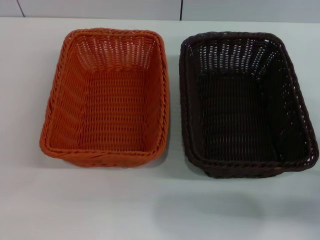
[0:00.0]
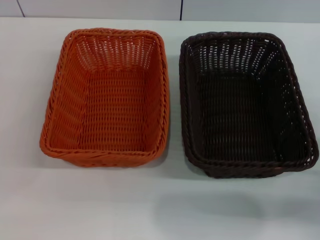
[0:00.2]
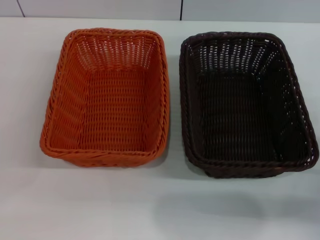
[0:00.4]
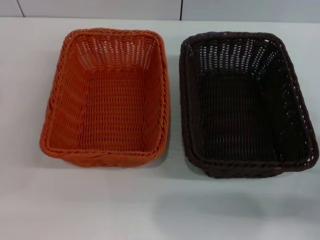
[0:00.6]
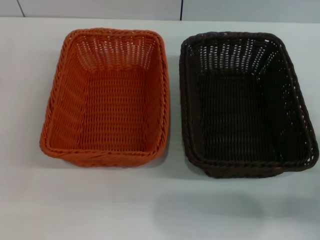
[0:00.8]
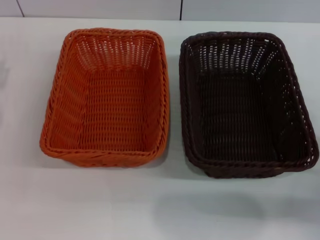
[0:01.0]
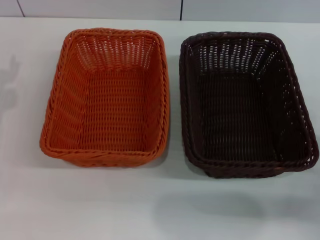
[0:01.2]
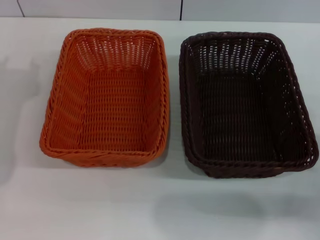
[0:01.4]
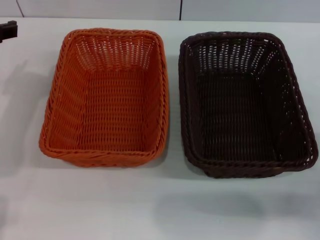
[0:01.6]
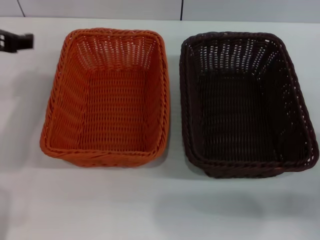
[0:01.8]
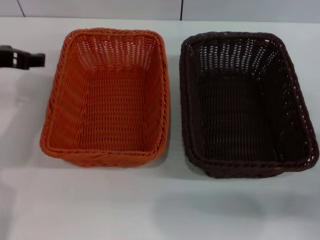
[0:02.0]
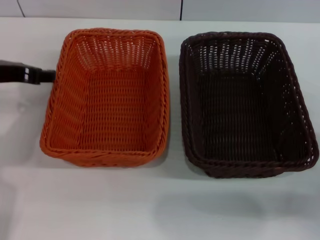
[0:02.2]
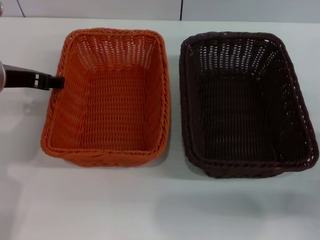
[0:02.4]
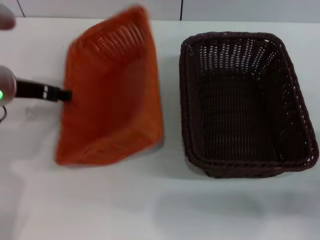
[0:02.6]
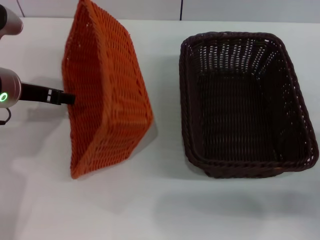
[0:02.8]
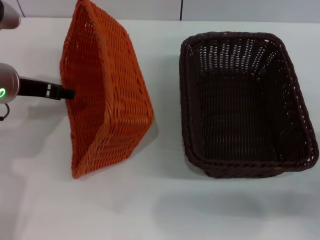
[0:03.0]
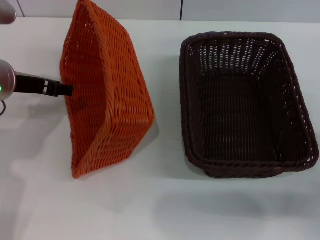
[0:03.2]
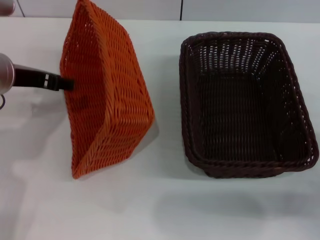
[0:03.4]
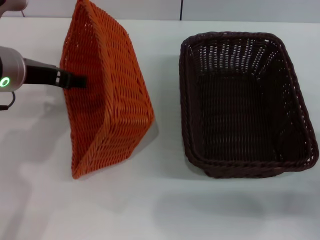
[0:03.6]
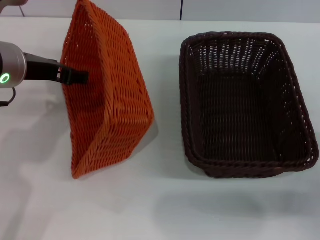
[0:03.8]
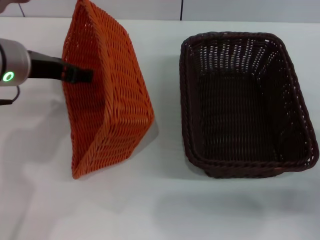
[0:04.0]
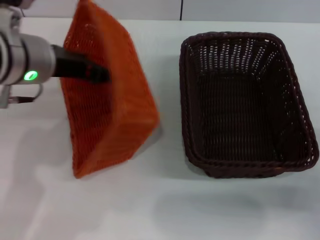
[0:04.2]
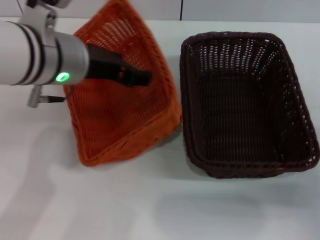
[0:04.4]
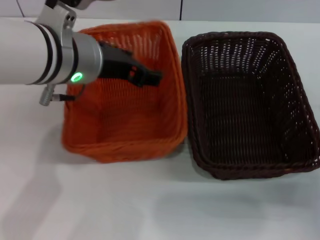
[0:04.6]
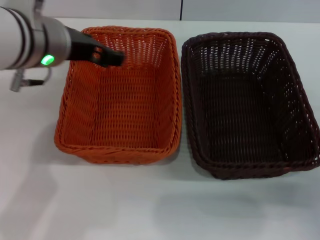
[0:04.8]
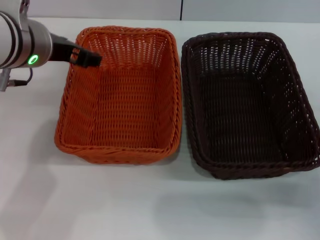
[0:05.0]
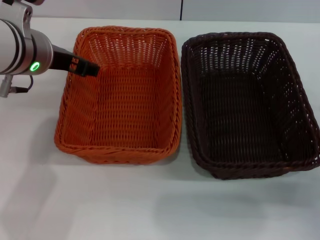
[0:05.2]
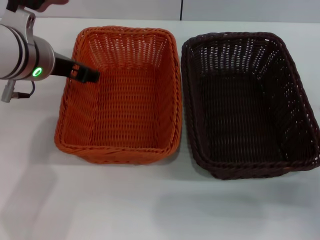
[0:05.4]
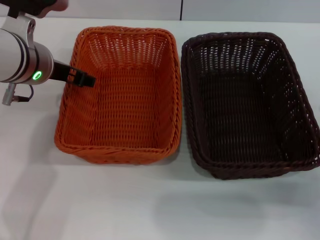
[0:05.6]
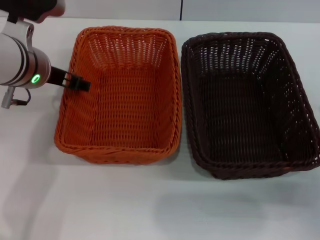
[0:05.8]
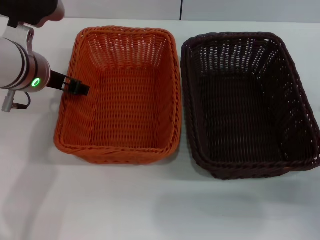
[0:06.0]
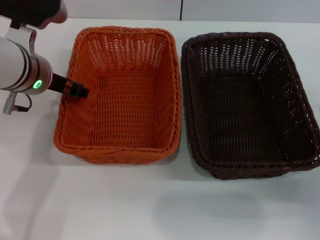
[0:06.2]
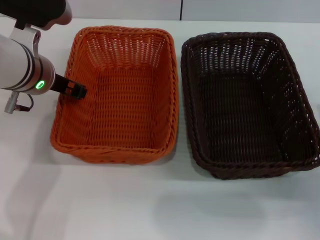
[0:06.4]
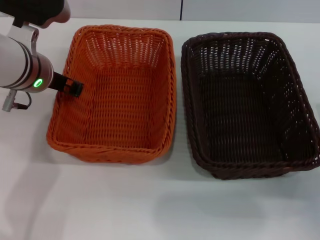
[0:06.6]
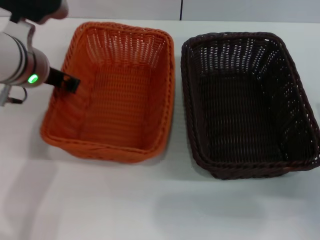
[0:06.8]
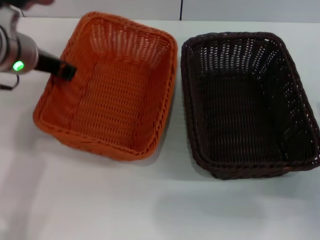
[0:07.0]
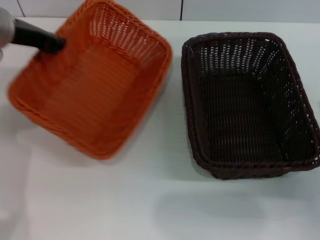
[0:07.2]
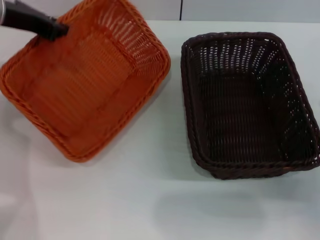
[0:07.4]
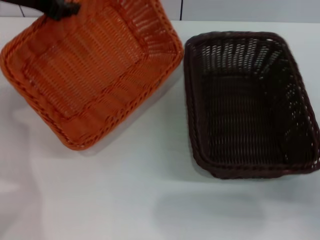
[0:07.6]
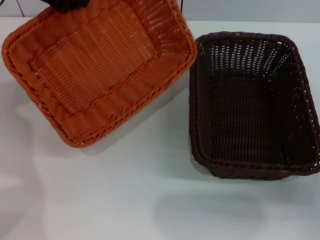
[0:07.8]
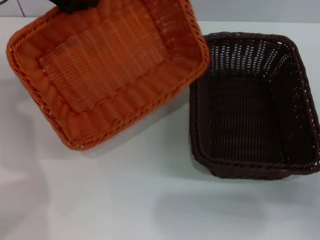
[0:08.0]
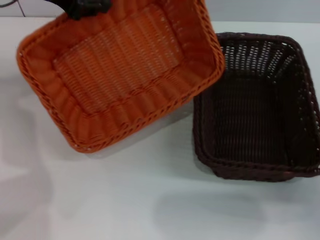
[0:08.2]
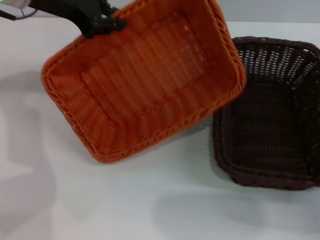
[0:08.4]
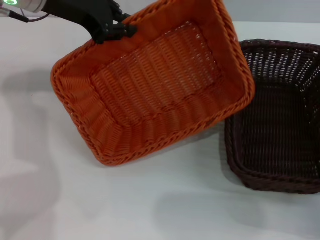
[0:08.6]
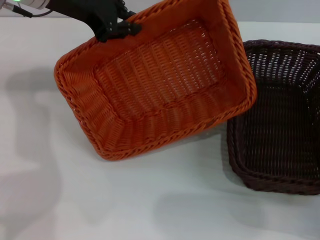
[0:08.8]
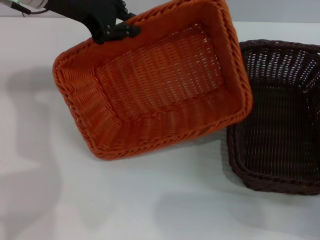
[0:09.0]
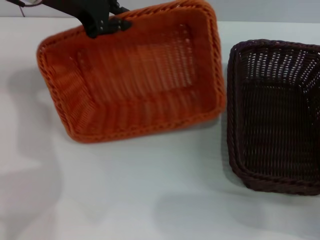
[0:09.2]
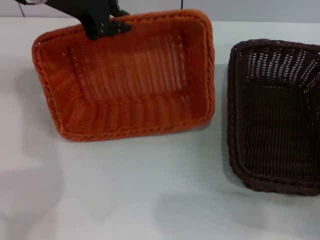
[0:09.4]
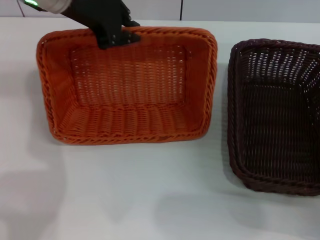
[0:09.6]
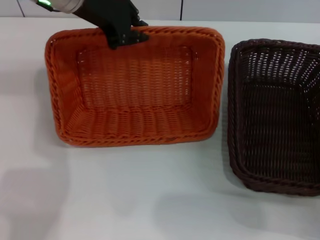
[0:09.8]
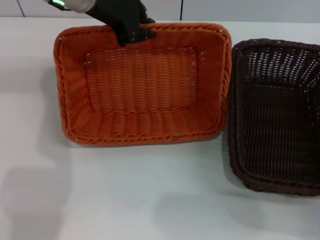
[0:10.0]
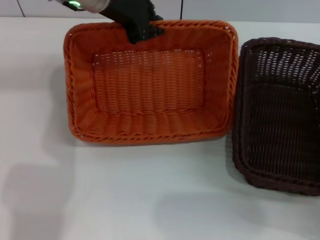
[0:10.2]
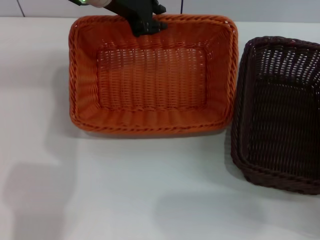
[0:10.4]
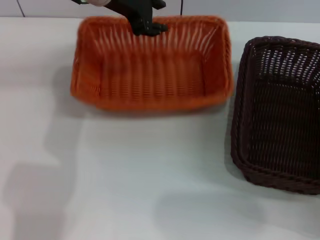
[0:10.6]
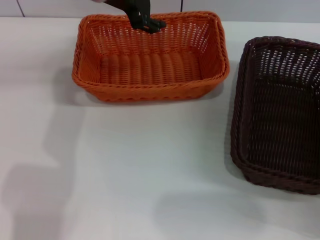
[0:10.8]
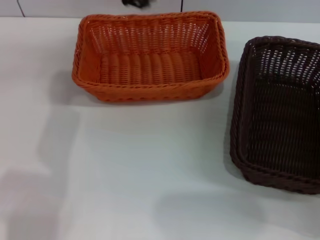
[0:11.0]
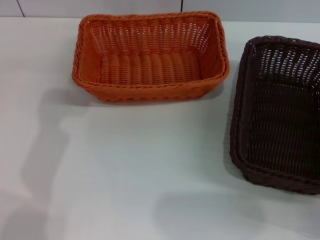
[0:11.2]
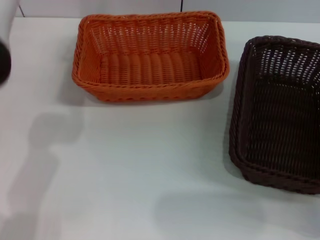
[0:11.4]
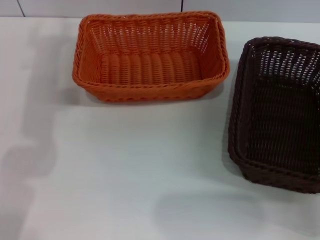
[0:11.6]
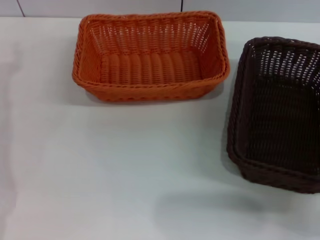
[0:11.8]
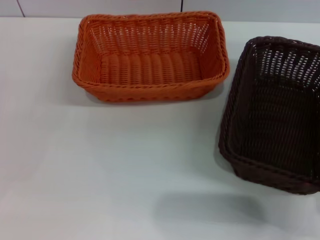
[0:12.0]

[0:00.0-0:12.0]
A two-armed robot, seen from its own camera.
Step, 0:00.0 to 0:07.2: Pick up the light basket with the left gripper.
Step, 0:07.6 to 0:10.6: Place the light basket in the center of view with the left gripper.
0:00.0 to 0:01.6: The left gripper travels upward, forward and to the right by approximately 25 cm.
0:01.6 to 0:03.0: The left gripper moves downward, about 5 cm.
0:03.0 to 0:04.4: The left gripper moves to the right and upward, some 10 cm.
0:04.4 to 0:06.0: The left gripper moves downward, about 5 cm.
0:06.0 to 0:07.6: The left gripper heads upward and to the left, covering some 10 cm, and closes its fingers.
0:07.6 to 0:09.0: The left gripper moves to the right, about 5 cm.
0:09.0 to 0:10.4: The left gripper moves to the right, approximately 5 cm.
0:10.4 to 0:12.0: The left gripper shifts roughly 35 cm to the left, backward and downward, and opens its fingers. Meanwhile the right gripper goes some 5 cm upward.

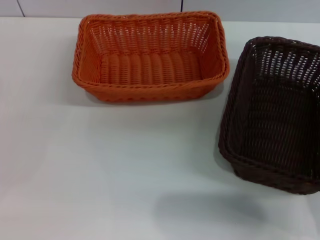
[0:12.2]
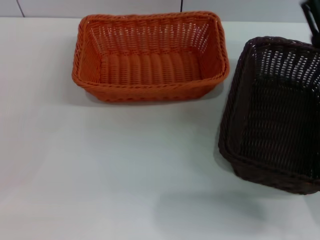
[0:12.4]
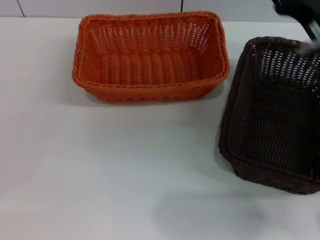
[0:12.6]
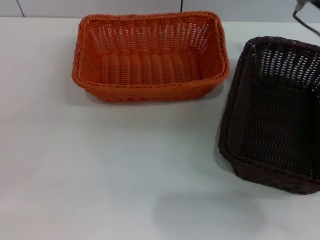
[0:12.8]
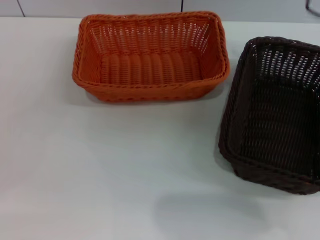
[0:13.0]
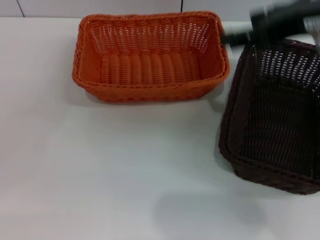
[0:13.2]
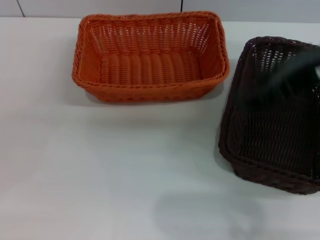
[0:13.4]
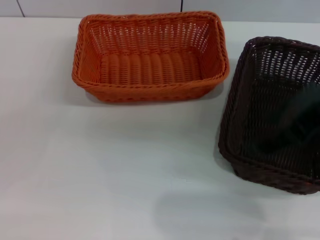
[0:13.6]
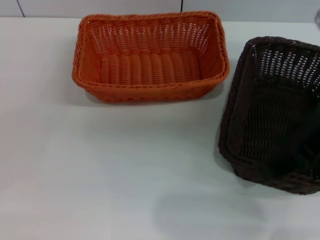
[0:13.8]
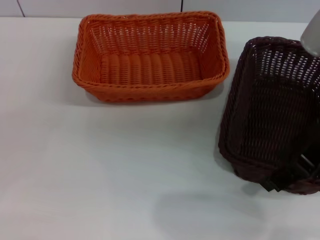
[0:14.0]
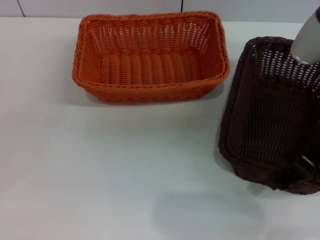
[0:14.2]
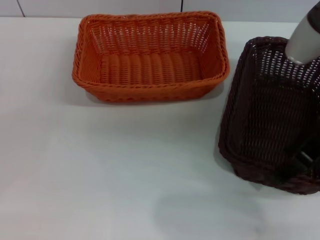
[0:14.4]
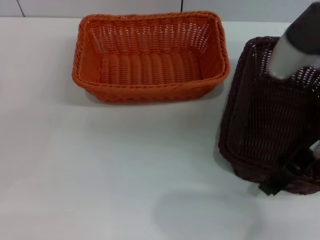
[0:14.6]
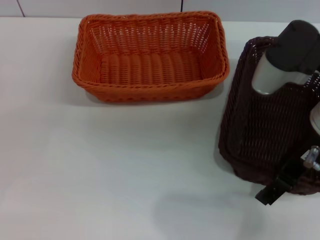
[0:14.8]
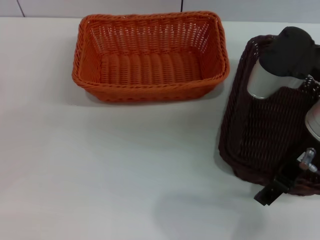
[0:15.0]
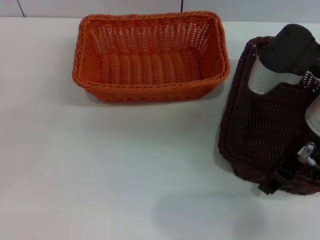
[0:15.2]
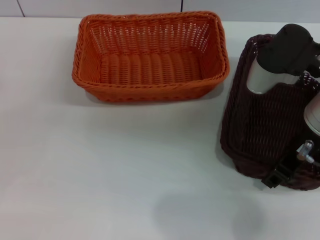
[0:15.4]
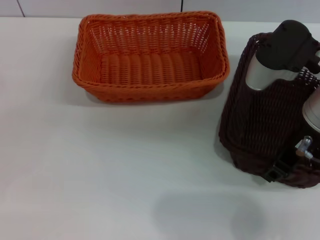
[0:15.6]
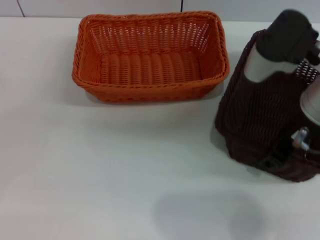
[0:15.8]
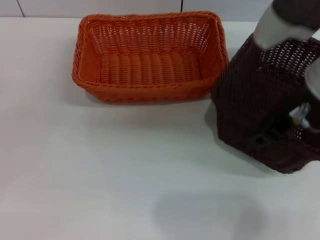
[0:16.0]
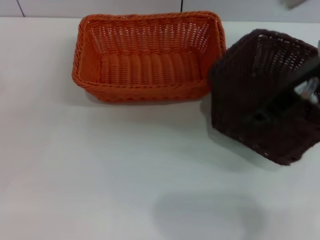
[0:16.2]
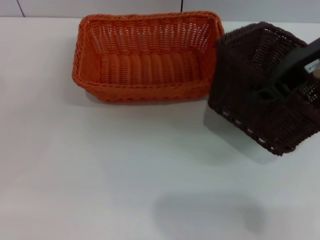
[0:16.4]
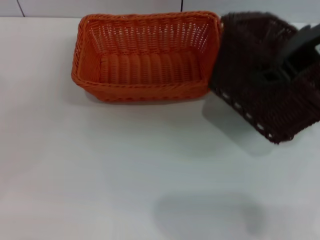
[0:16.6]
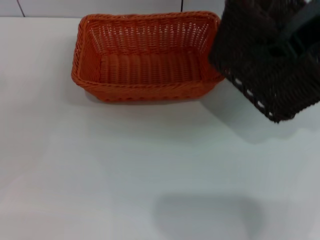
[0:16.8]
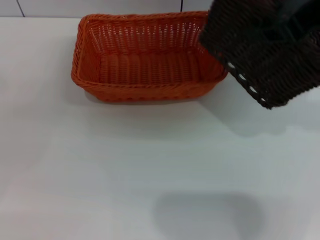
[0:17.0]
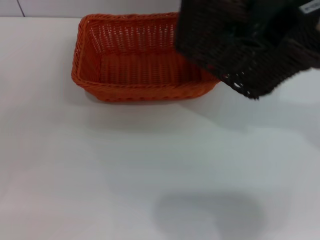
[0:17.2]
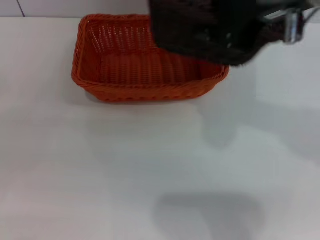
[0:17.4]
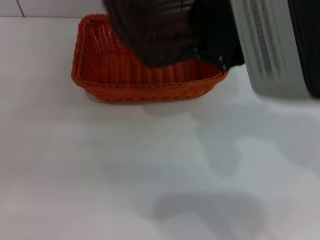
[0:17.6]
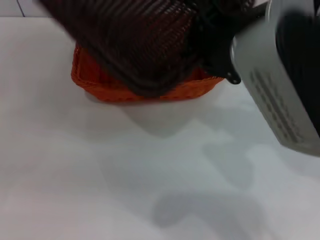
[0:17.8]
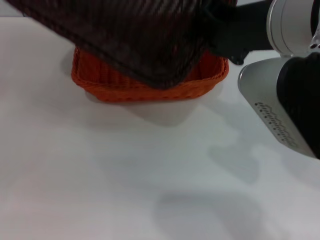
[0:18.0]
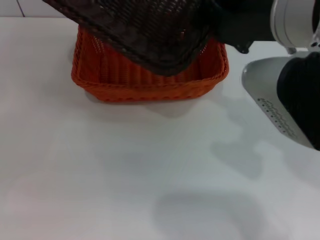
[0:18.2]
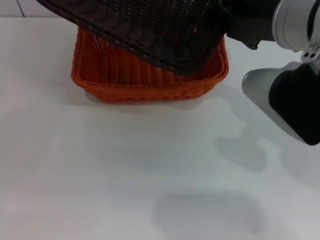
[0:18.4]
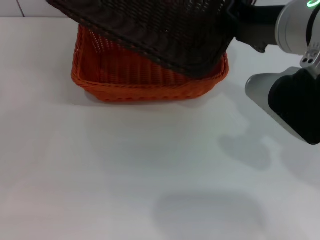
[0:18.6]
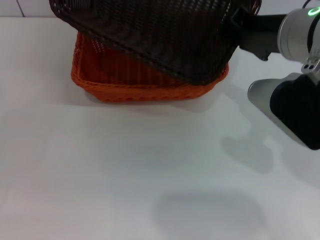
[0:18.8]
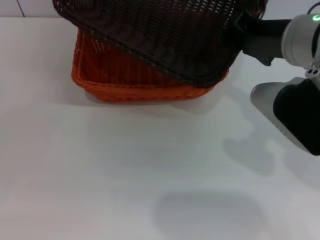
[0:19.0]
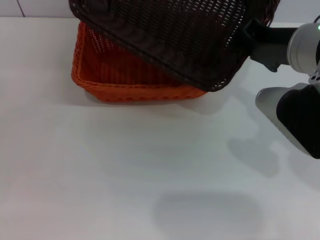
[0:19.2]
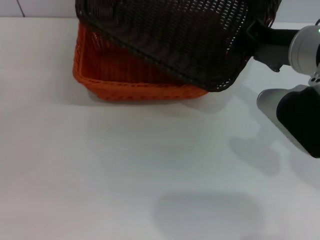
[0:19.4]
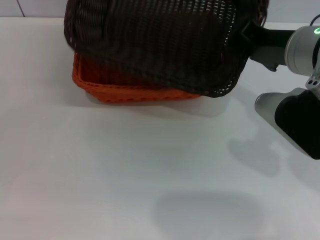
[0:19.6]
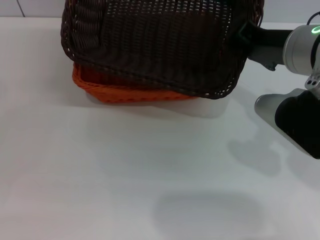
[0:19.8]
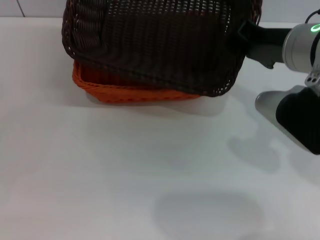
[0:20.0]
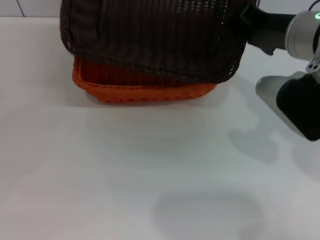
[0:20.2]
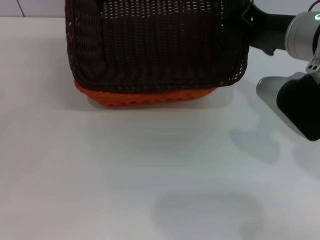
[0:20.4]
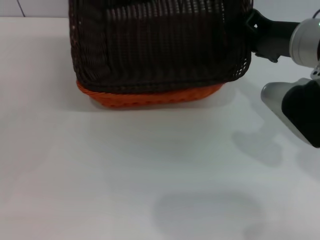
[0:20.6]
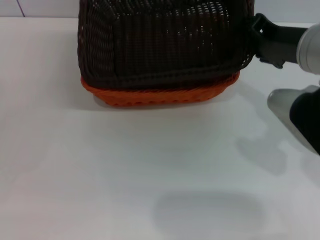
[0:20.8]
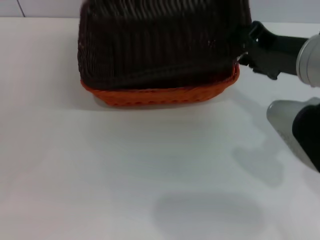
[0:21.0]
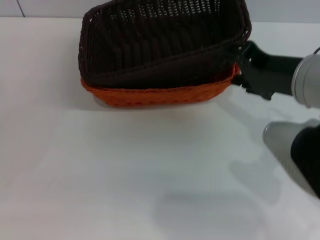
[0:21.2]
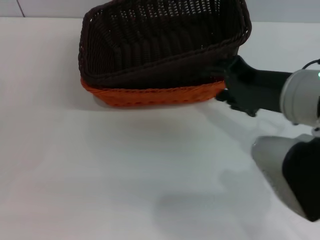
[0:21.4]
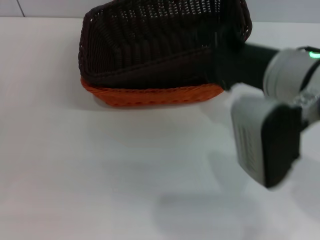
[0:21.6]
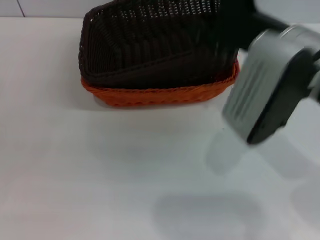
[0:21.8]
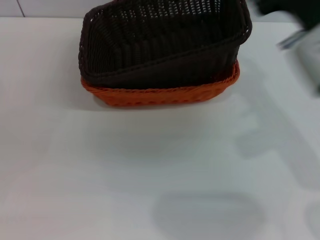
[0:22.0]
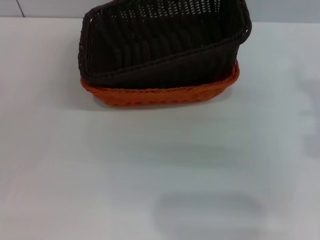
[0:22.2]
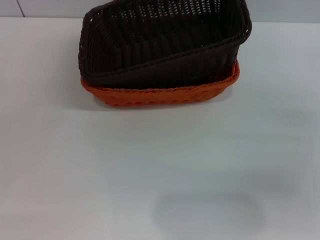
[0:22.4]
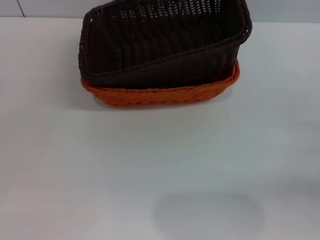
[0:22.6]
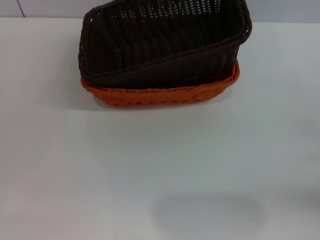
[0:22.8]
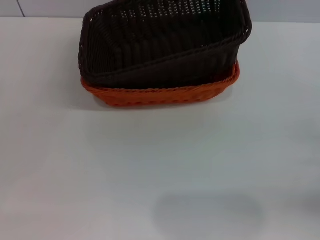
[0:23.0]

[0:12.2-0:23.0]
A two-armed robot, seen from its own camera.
Step, 0:12.2 to 0:16.2: Pick up the dark basket with the right gripper.
Step, 0:16.4 to 0:21.0: Place the dark basket on the light basket with the right gripper.
0:12.2 to 0:13.8: The right gripper shifts approximately 15 cm upward.
0:13.8 to 0:15.2: The right gripper shifts approximately 5 cm downward.
0:15.2 to 0:16.8: The right gripper shifts about 15 cm upward, and closes its fingers.
0:16.8 to 0:18.4: The right gripper travels downward and to the left by some 10 cm.
0:18.4 to 0:20.0: The right gripper moves some 5 cm.
0:20.0 to 0:21.4: The right gripper goes roughly 5 cm backward, and opens up.
0:21.4 to 0:23.0: The right gripper moves to the right and downward, some 25 cm.
